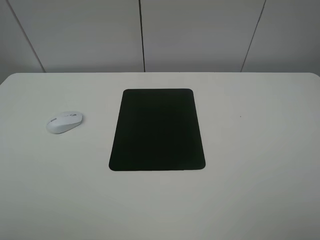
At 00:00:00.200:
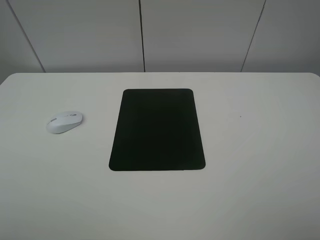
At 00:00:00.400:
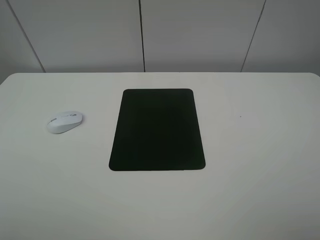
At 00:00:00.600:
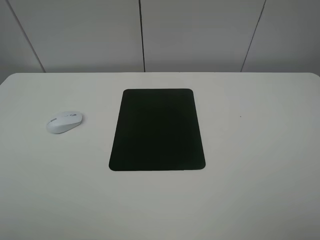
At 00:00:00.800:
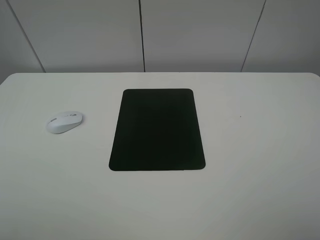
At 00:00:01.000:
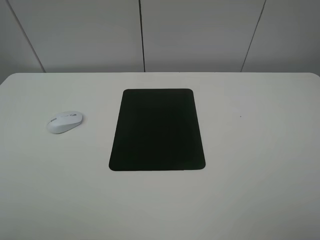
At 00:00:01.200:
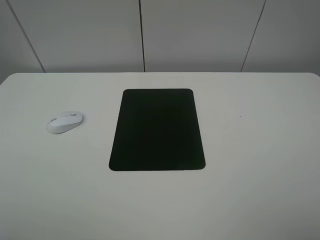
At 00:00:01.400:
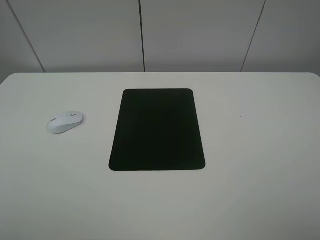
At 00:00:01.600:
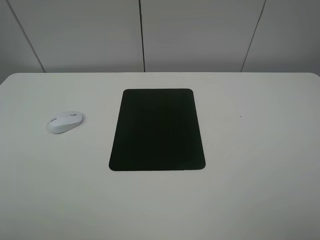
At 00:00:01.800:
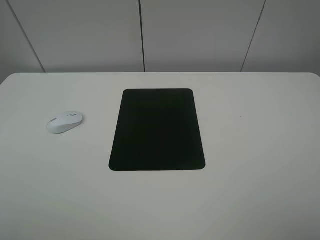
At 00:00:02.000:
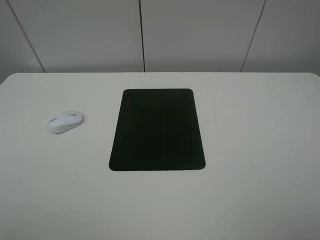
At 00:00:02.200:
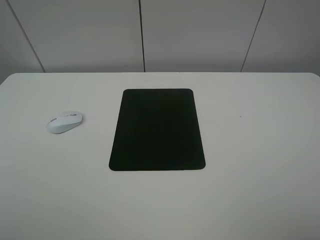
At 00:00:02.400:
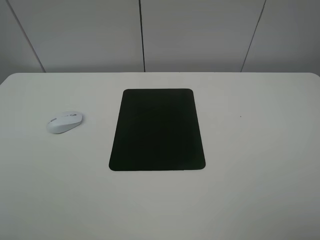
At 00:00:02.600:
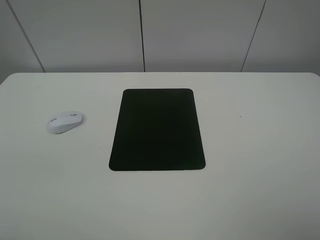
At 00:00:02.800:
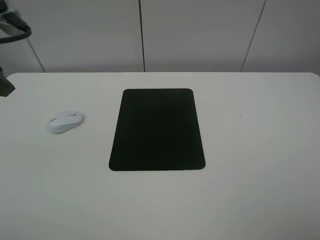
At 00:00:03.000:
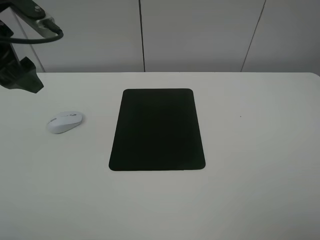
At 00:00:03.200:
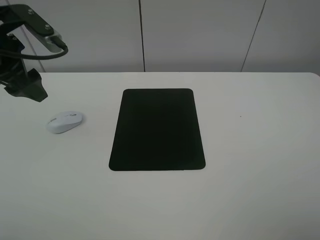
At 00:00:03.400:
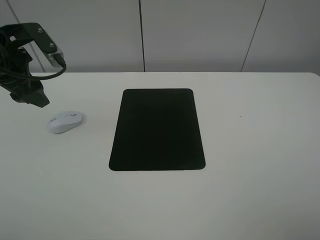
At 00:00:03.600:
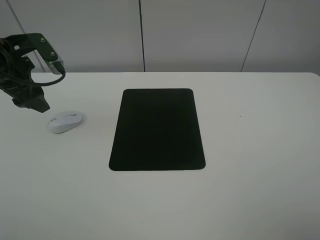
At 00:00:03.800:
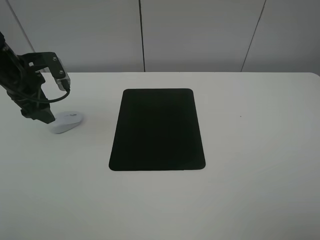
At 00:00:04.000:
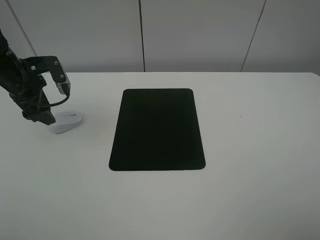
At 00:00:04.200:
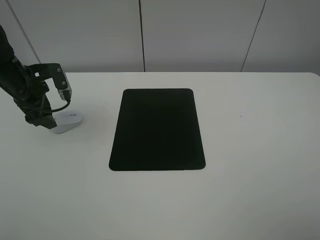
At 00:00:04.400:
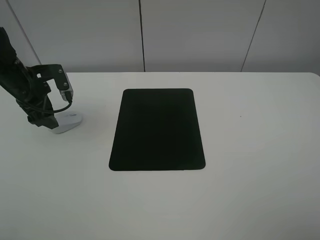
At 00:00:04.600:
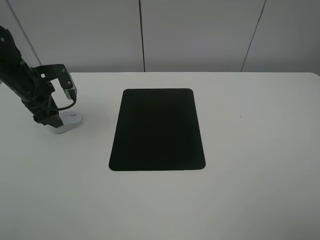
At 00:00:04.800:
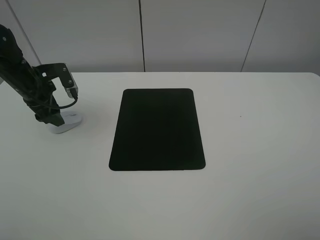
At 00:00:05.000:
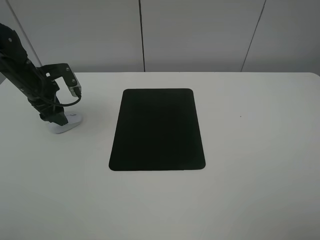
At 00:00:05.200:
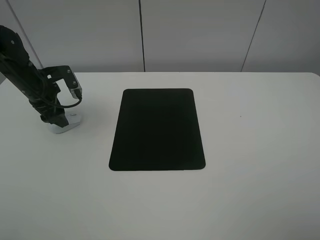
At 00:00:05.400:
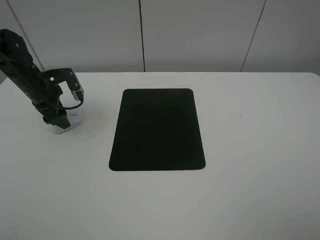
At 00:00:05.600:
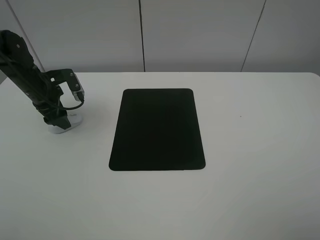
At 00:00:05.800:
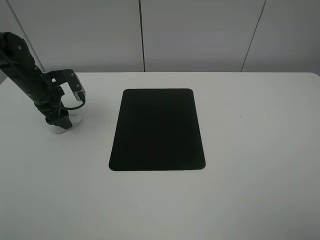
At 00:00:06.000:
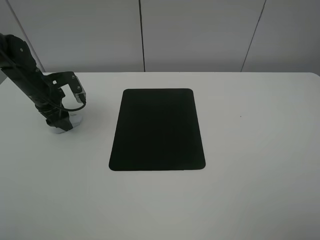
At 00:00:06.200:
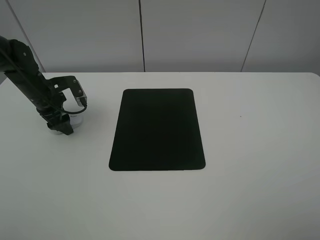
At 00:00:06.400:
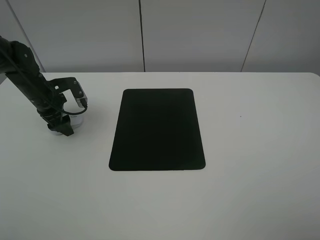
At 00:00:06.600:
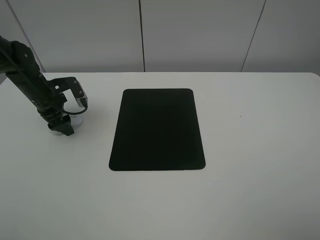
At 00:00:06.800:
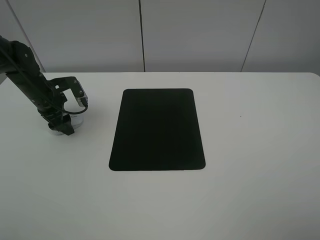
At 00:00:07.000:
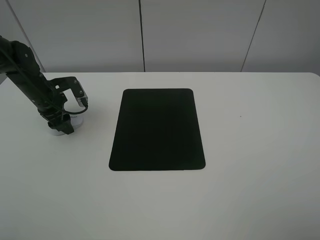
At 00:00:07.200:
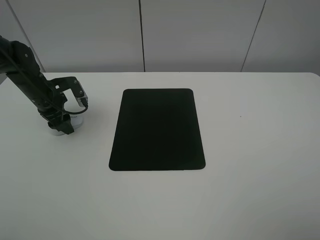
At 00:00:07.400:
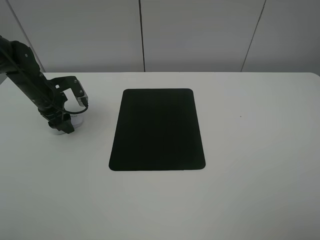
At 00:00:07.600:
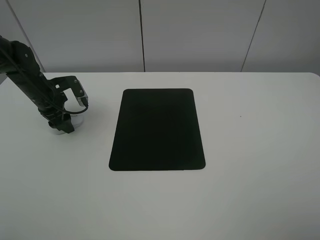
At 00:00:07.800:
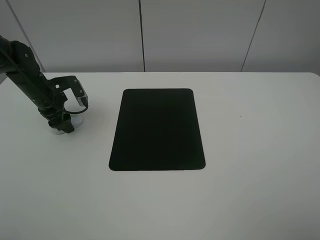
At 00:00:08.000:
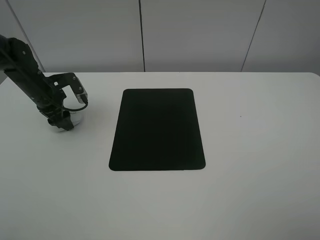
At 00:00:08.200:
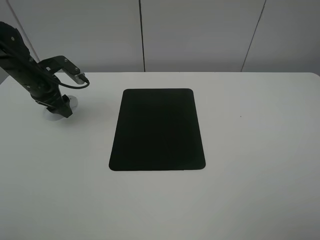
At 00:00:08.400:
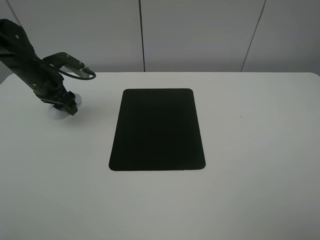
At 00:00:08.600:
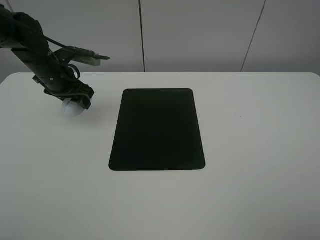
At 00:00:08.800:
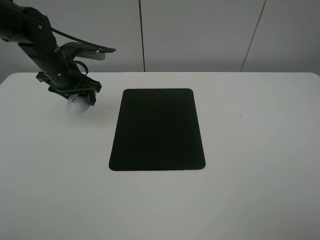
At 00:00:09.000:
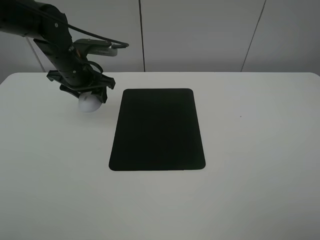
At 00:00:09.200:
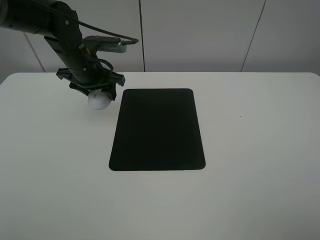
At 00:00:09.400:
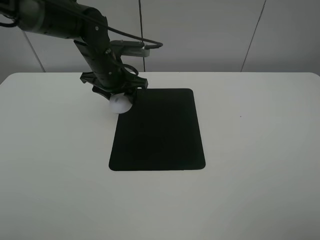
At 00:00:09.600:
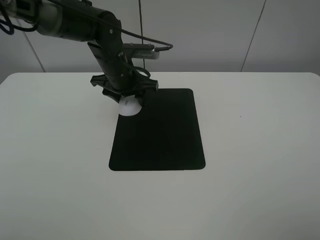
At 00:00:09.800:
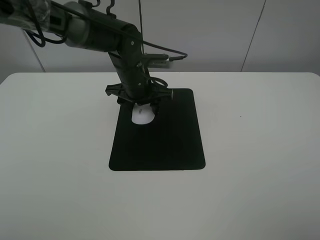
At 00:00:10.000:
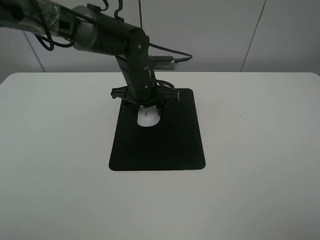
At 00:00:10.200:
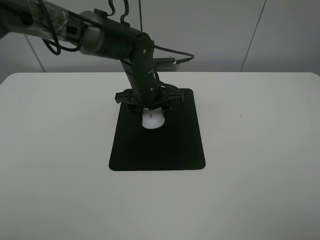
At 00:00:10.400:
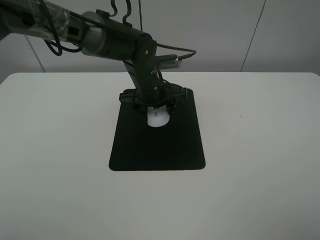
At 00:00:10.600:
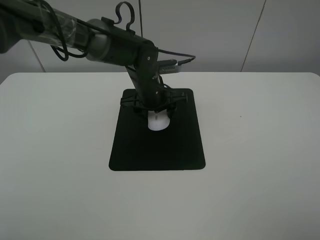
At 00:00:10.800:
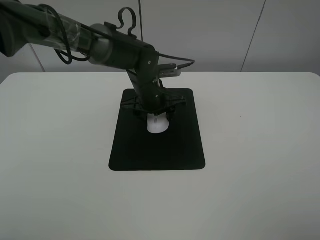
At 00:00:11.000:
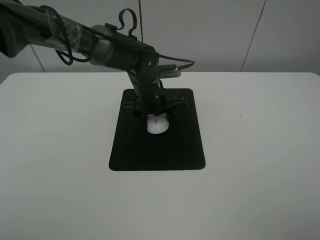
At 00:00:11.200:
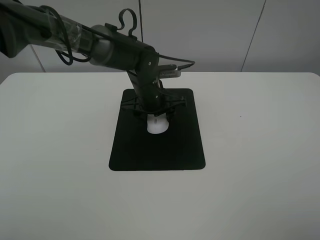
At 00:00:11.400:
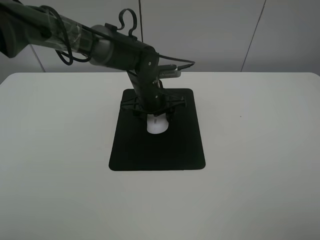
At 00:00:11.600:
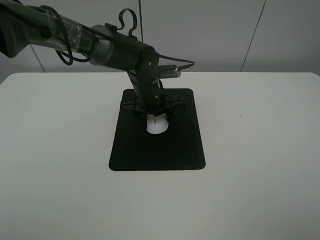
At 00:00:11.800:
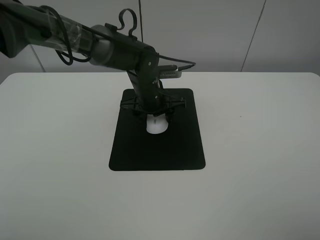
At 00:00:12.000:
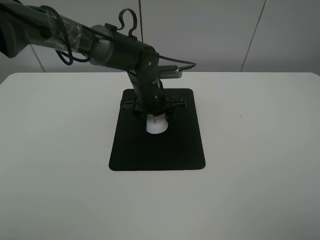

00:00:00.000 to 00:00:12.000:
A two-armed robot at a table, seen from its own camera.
Step, 00:00:00.000 to 00:00:07.800: Grasp the mouse with the left gripper.
00:00:00.000 to 00:00:01.600: Both grippers stay about where they are.
00:00:01.600 to 00:00:03.000: The left gripper heads forward, covering about 25 cm.
00:00:03.000 to 00:00:04.400: The left gripper is displaced downward and forward by roughly 15 cm.
00:00:04.400 to 00:00:06.000: The left gripper changes place by approximately 5 cm.
00:00:06.000 to 00:00:07.600: The left gripper closes up.
00:00:07.600 to 00:00:09.000: The left gripper shifts approximately 10 cm to the right and upward.
00:00:09.000 to 00:00:10.400: The left gripper travels to the right by approximately 15 cm.
00:00:10.400 to 00:00:12.000: The grippers stay close to where they were, moving slightly.

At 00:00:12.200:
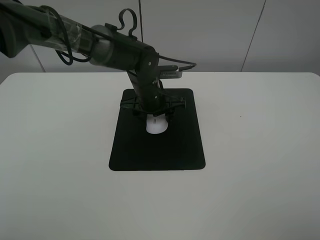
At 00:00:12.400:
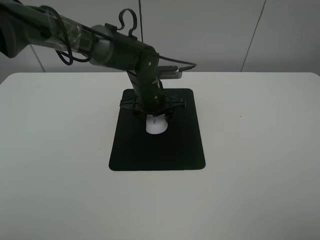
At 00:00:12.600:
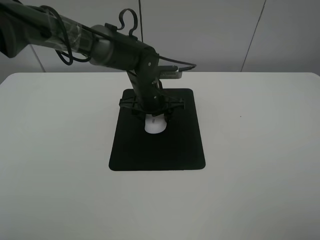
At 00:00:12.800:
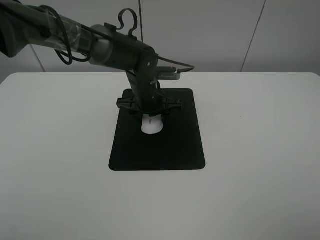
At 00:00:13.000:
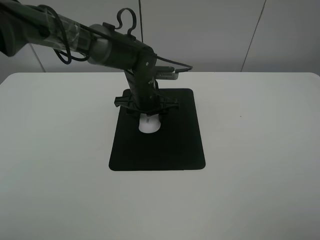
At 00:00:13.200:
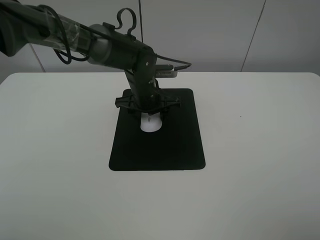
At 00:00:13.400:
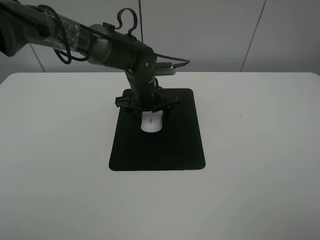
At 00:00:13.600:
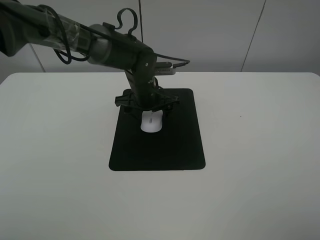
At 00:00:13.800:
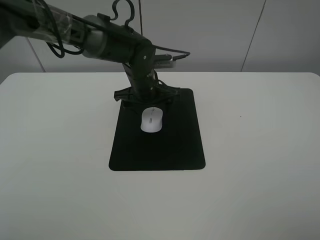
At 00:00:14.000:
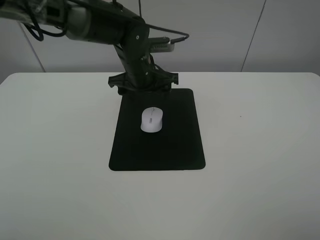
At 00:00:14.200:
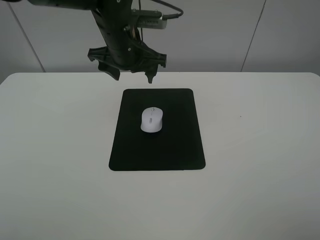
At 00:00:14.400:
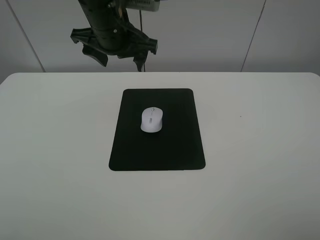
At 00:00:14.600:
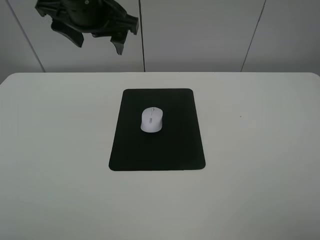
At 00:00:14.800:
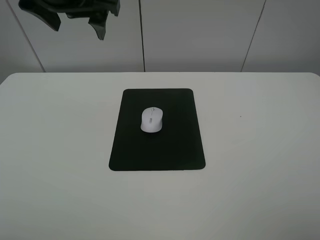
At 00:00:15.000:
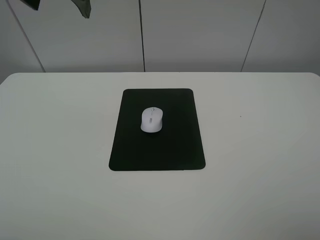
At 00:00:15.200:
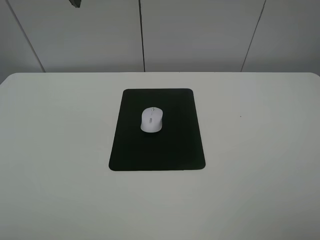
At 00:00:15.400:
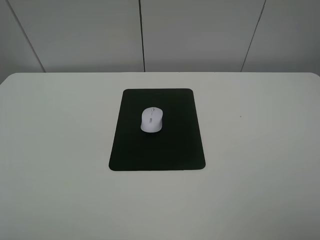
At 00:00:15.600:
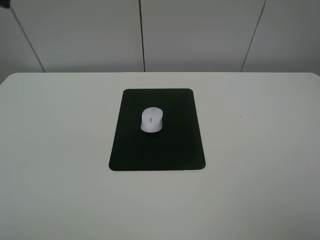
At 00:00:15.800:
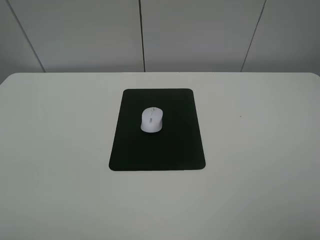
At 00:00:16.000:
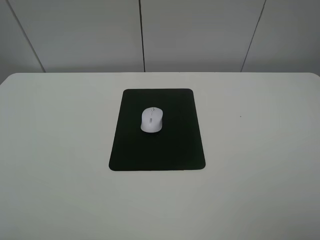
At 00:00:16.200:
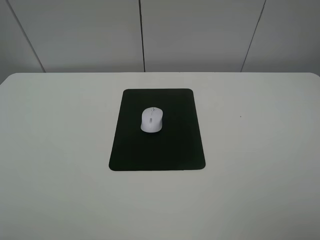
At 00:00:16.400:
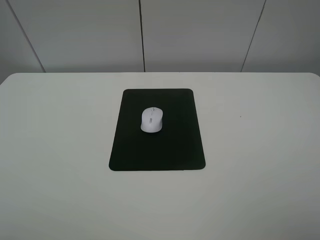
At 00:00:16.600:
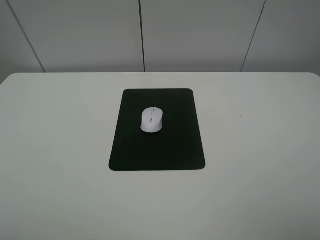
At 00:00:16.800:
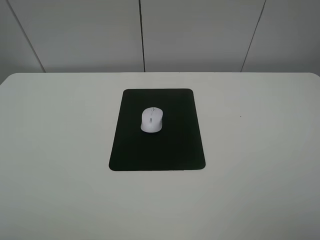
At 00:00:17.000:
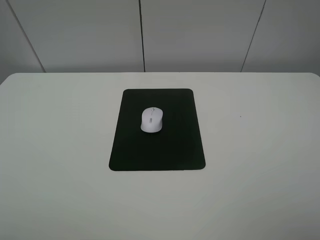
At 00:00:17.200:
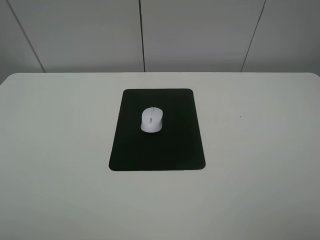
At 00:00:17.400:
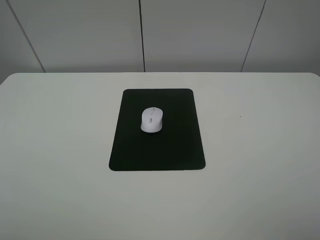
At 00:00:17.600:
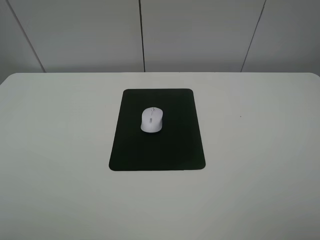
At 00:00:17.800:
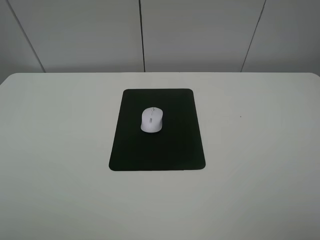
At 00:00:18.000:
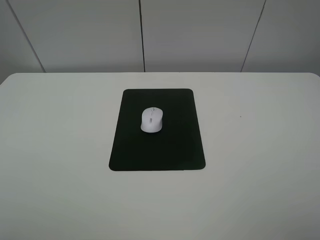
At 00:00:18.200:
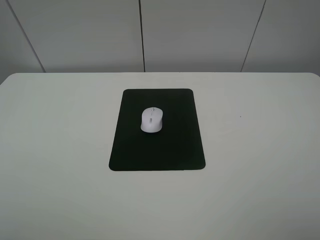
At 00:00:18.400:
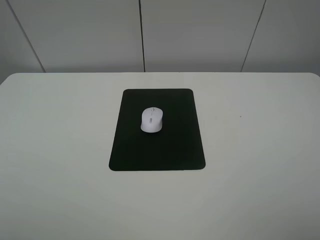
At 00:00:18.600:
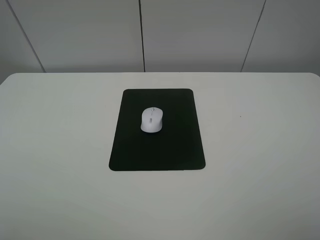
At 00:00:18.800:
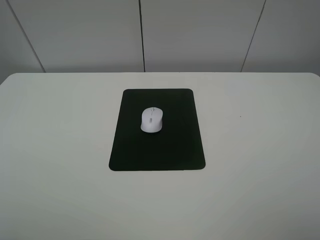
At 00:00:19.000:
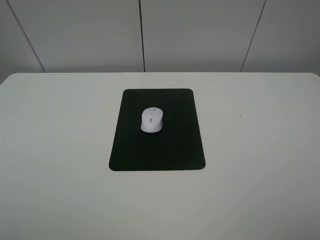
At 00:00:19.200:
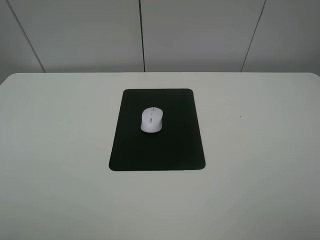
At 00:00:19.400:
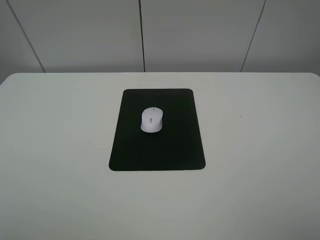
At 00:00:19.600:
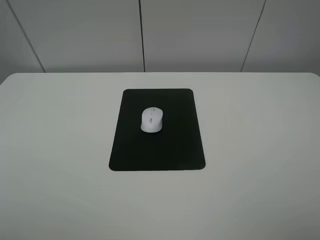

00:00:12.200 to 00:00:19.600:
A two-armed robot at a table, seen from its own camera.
00:00:12.200 to 00:00:13.600: The left gripper opens its fingers.
00:00:13.600 to 00:00:15.200: The left gripper travels upward and to the left by about 35 cm.
